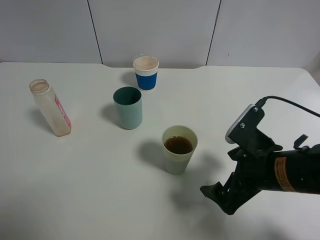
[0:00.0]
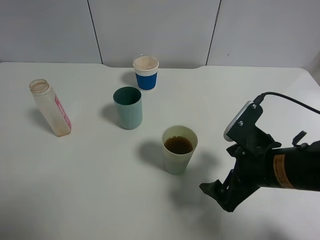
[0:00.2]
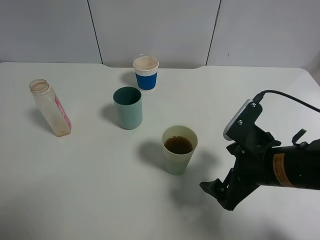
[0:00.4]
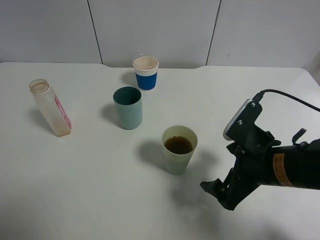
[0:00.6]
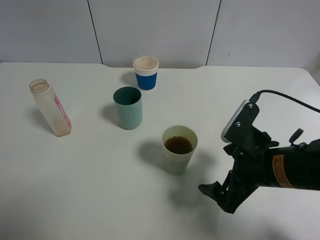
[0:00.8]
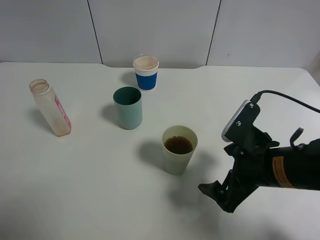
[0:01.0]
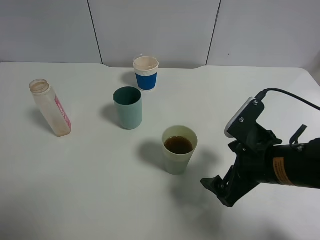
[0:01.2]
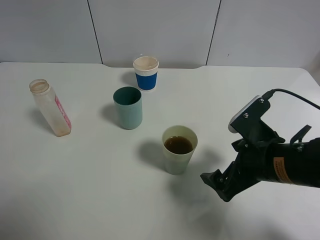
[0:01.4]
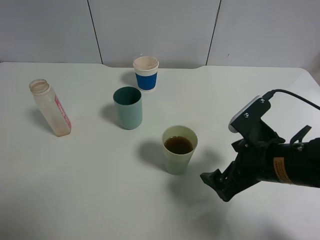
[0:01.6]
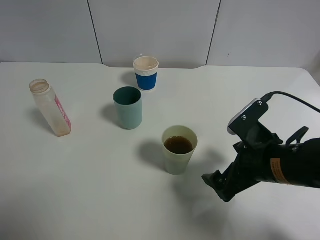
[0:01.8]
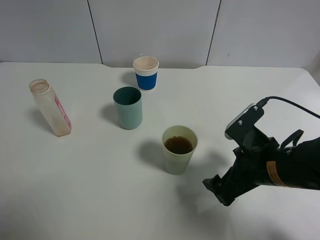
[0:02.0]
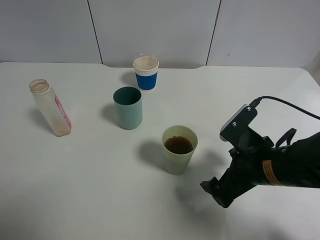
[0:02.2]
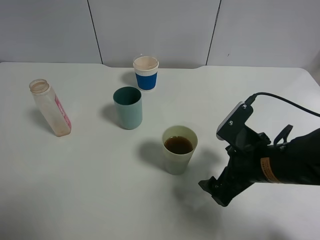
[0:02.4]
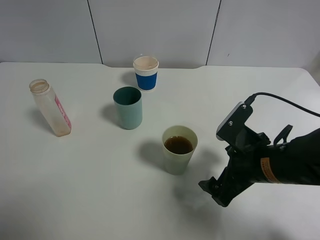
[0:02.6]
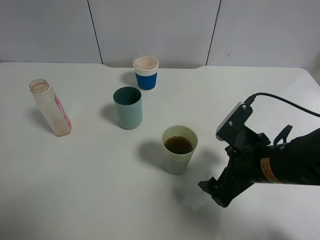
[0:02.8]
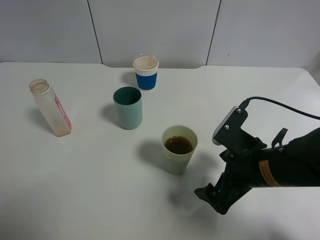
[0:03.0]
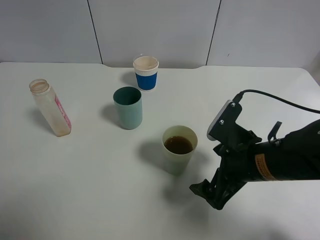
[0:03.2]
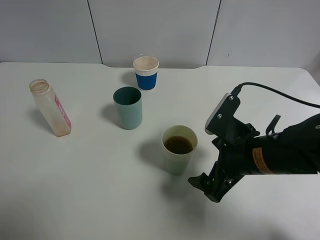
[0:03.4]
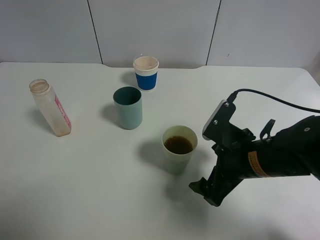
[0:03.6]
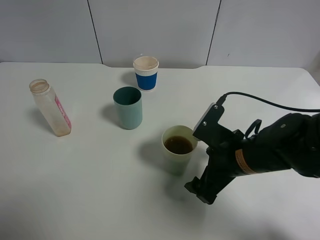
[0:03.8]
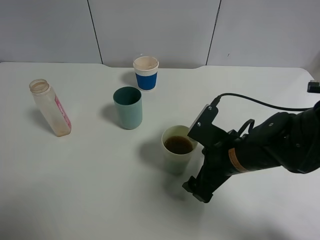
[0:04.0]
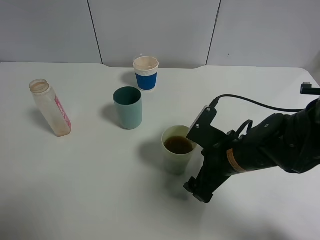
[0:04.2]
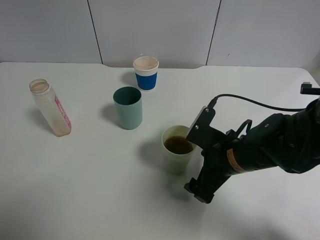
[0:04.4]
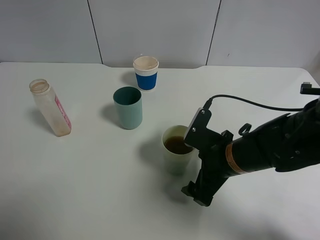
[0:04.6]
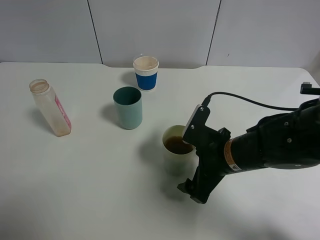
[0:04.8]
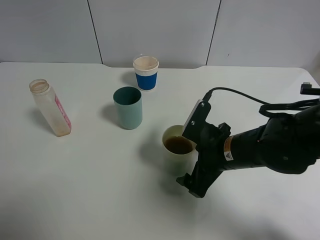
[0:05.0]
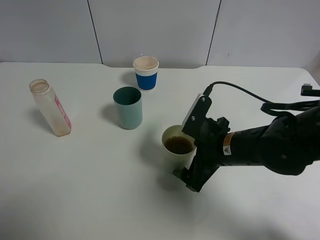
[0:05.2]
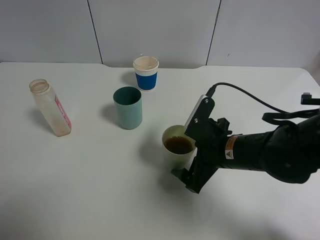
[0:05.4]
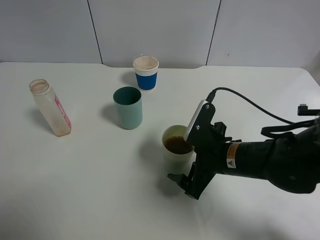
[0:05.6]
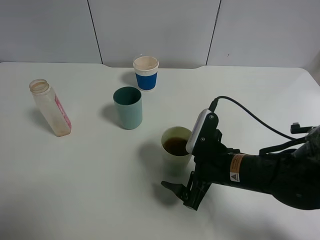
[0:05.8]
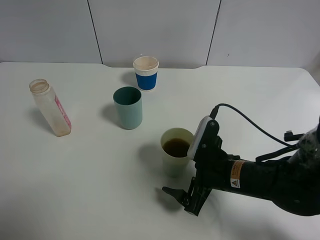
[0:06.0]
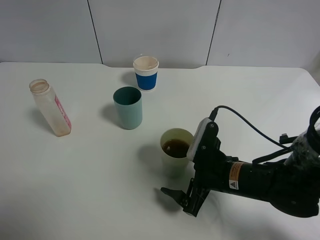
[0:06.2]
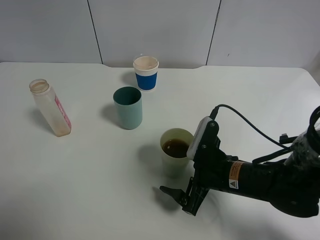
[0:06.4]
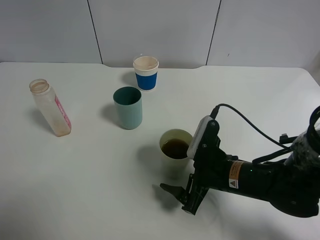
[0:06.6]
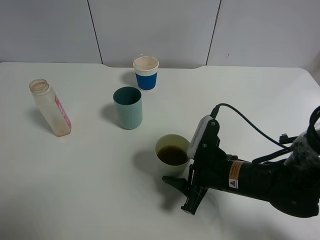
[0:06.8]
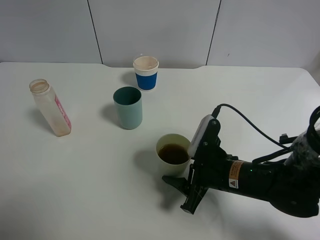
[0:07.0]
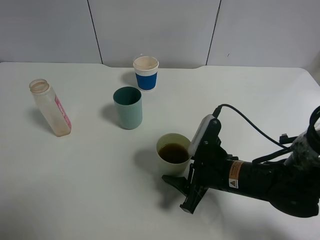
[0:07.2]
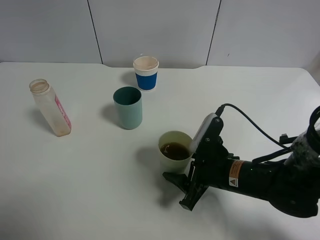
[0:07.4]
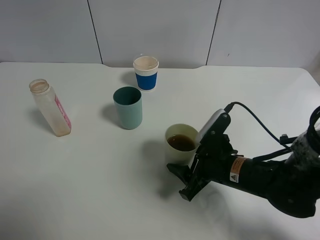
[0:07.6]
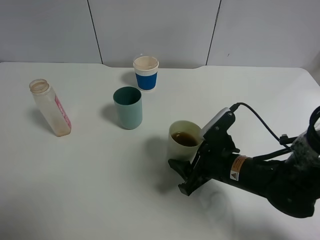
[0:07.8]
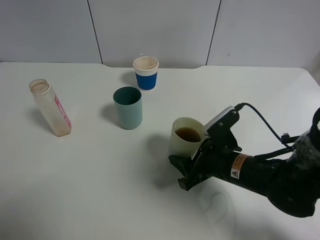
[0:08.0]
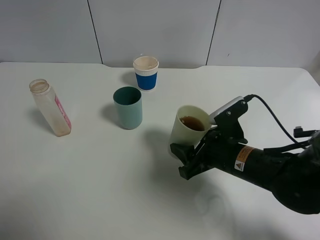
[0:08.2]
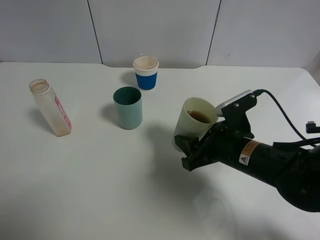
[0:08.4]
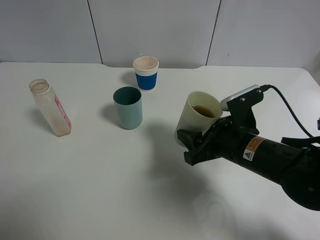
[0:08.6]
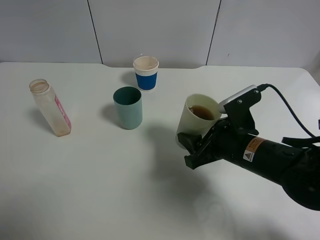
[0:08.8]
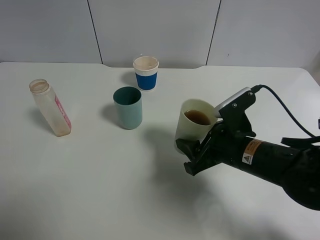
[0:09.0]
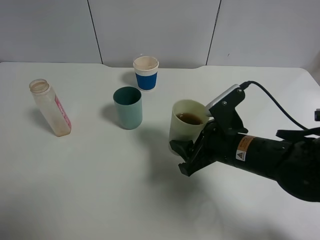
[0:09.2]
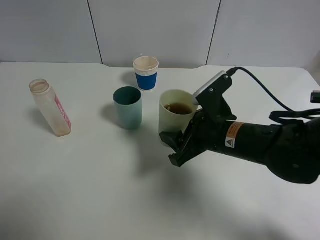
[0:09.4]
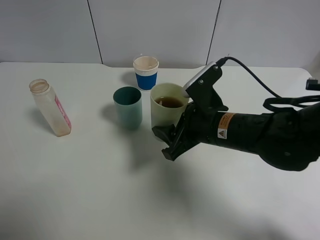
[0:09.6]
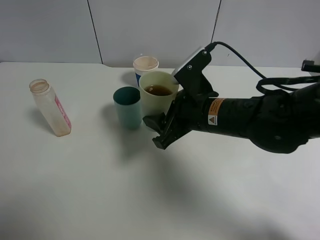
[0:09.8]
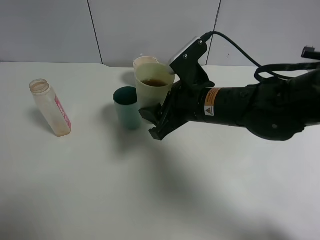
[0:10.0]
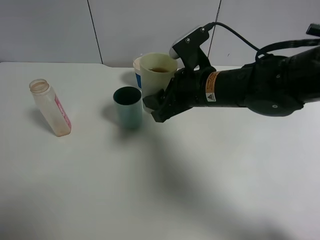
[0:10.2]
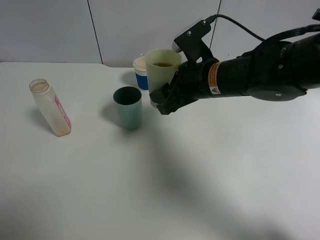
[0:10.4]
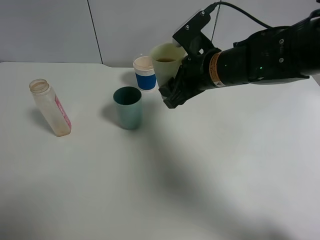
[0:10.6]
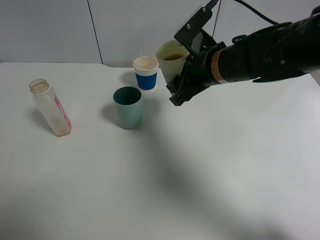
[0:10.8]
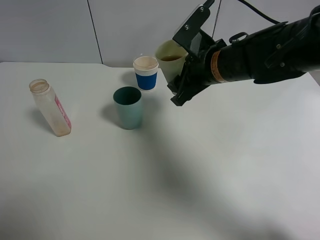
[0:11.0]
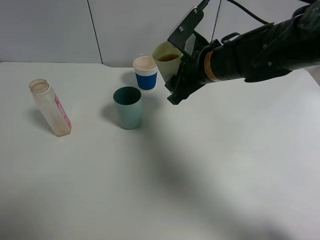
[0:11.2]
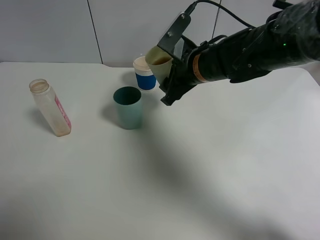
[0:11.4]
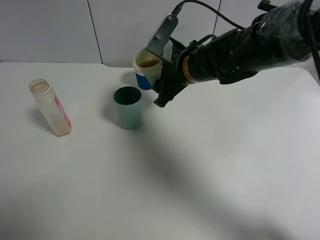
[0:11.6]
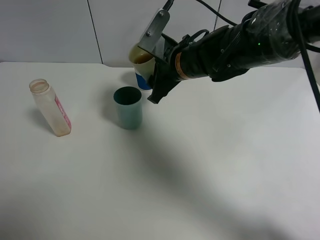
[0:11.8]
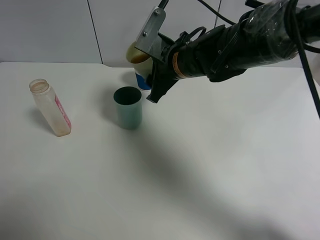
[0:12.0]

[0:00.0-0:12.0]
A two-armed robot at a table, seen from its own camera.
Task of the whole recording: use a clamp to hold the bottle of the drink, pour the beverage into a random cup, then clamp the cup containing the drink and pour the drink into another random cup.
Step, 0:00.0 to 0:08.2: Pick up the green plastic cup bottle with right gripper.
0:00.0 to 0:03.0: There are only small adjustments of the grippers.
0:03.0 to 0:04.4: The right gripper shifts by about 5 cm.
0:06.0 to 0:07.6: The right gripper closes.
0:07.6 to 0:09.0: The grippers move only a little.
0:09.0 to 0:10.4: The right gripper heads forward, upward and to the left, covering some 15 cm.
0:10.4 to 0:12.0: The right gripper ends up about 5 cm from where it was.

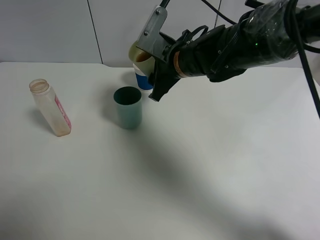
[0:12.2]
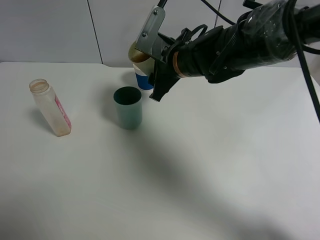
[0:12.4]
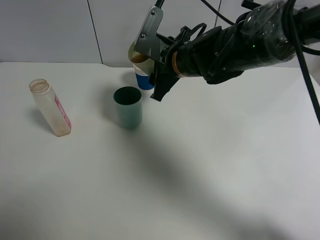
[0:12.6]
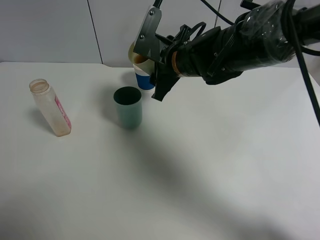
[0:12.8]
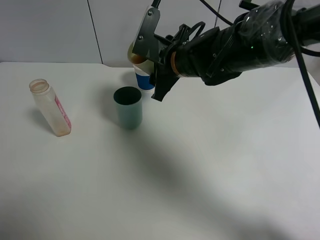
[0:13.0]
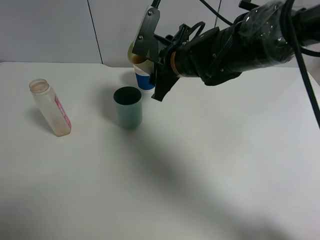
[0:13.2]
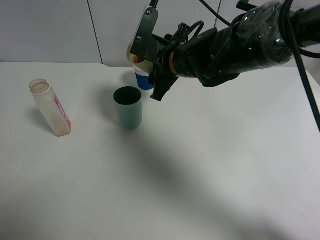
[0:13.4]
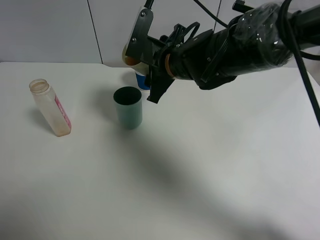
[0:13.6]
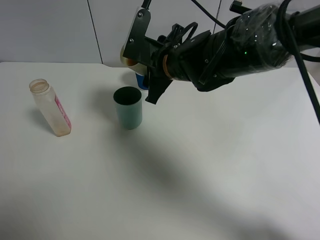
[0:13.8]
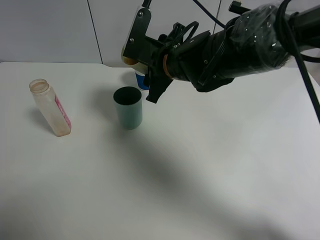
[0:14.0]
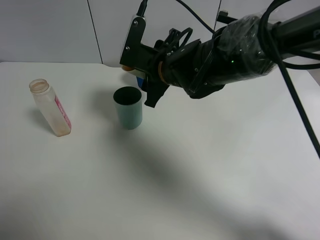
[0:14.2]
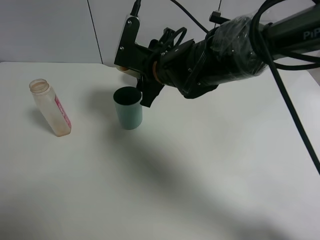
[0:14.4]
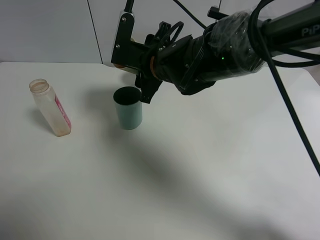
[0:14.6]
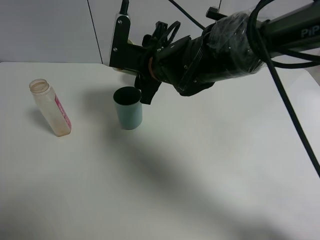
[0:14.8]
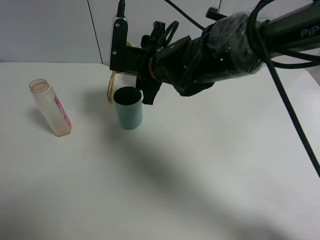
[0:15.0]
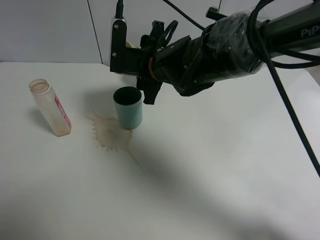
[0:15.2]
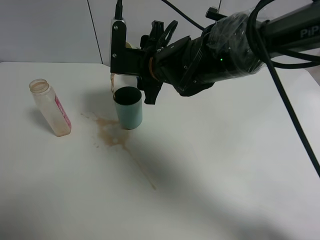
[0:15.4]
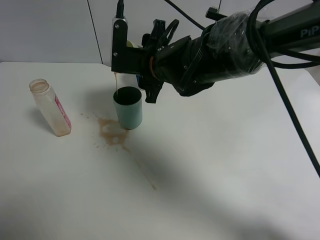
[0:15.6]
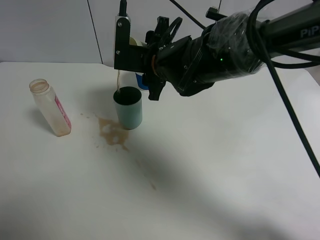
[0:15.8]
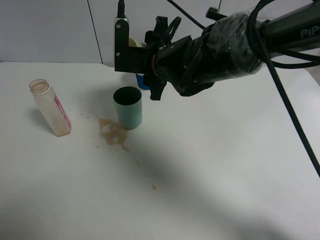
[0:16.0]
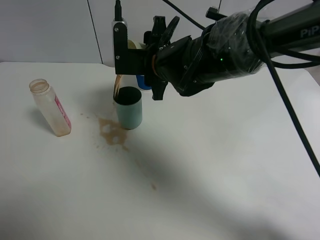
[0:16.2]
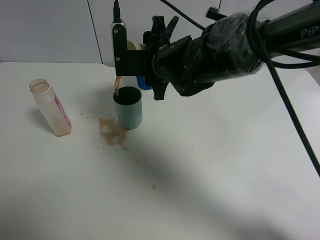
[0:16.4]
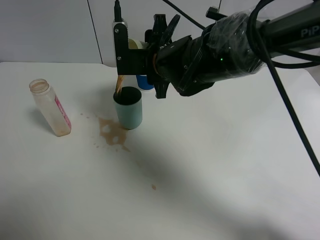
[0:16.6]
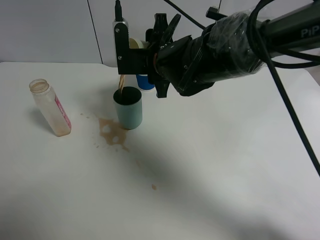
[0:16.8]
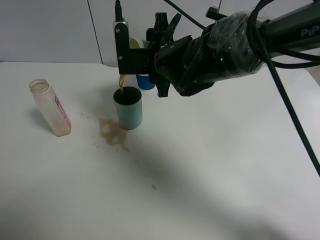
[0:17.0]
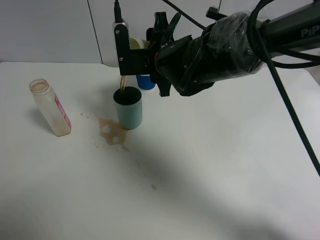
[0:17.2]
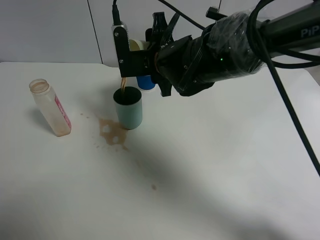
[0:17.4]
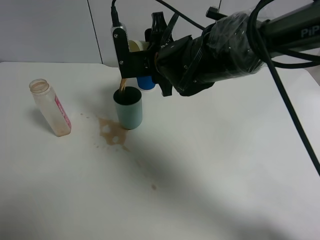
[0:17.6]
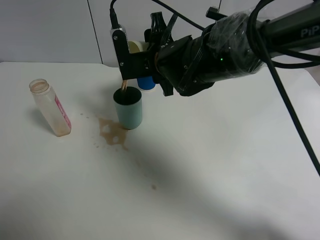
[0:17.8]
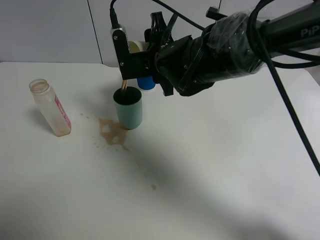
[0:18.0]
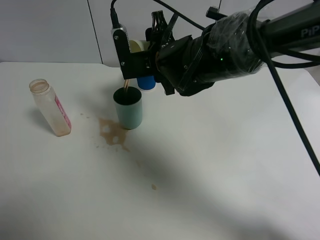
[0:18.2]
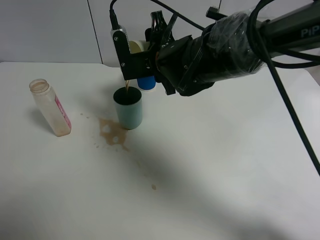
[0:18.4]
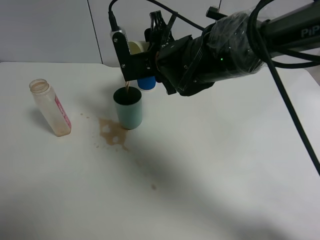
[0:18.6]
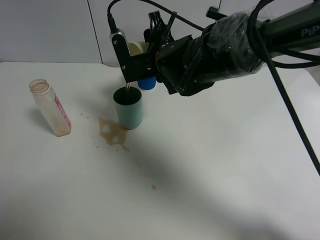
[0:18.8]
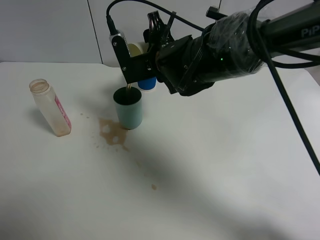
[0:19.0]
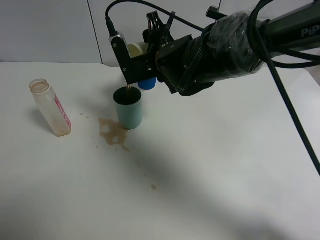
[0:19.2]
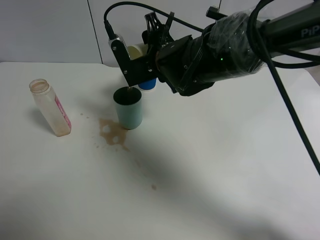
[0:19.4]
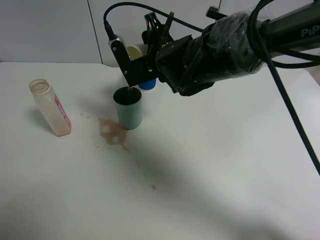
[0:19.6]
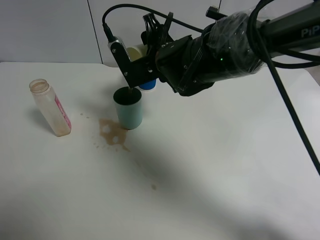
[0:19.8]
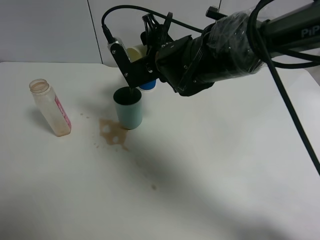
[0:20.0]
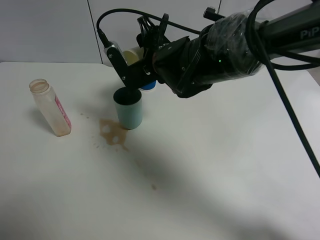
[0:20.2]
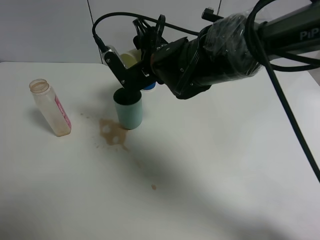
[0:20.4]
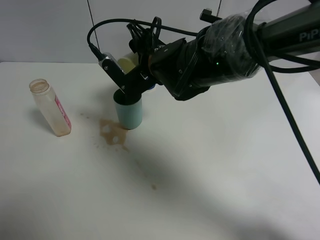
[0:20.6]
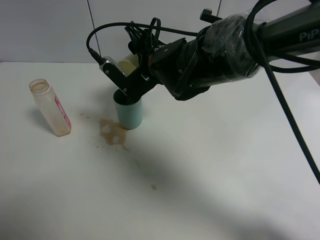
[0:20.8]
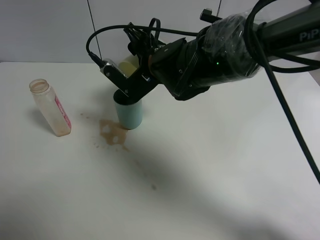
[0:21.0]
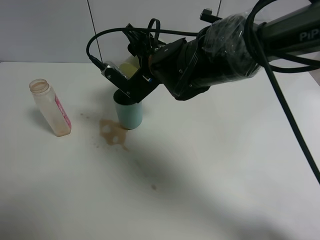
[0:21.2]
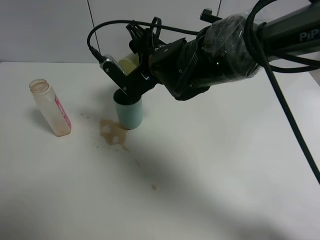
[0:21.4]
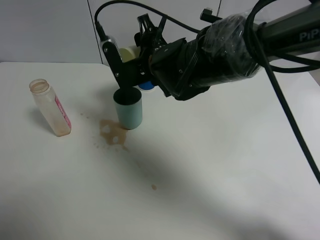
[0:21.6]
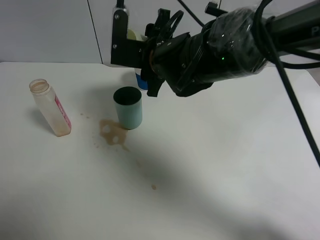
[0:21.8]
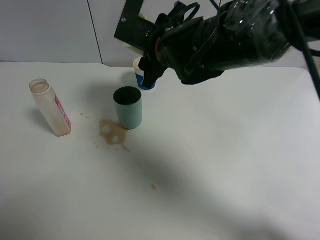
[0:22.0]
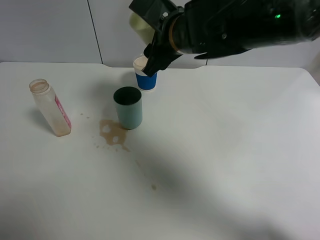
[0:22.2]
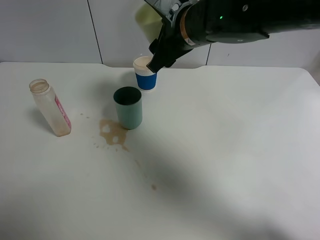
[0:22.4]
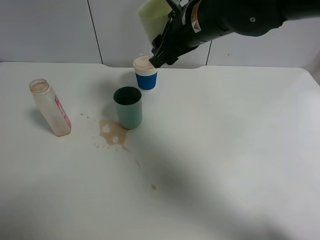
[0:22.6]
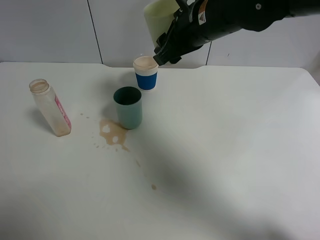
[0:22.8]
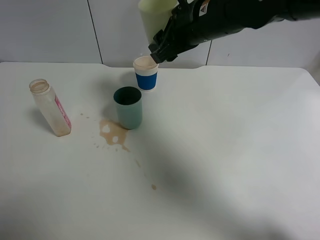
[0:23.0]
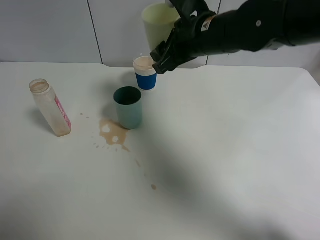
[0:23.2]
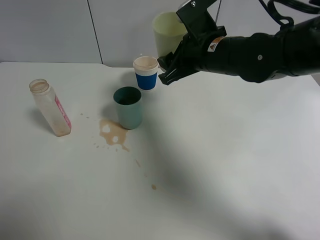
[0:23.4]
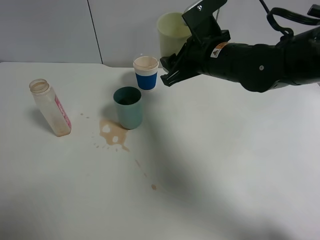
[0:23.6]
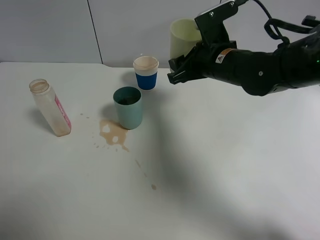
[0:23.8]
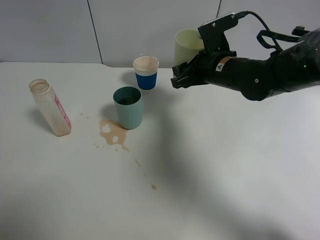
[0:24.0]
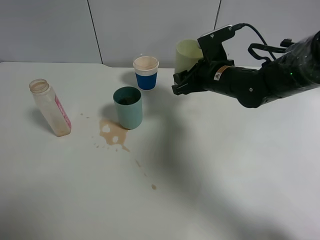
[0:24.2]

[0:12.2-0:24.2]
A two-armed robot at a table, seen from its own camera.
Task of the whole recording: use a clamp to hold the bottle of the drink, pour the beverage into a random cup, then clamp the cup containing the drink and pour the drink into another random cup.
Step, 0:12.2 to 0:21.6: Pour the drink into the blue plastic cup with right gripper.
0:12.2 to 0:13.8: The grippers stay close to where they were, moving slightly.
0:13.8 to 0:15.2: The grippers make only small movements.
0:15.2 to 0:16.6: There are only small adjustments of the grippers.
0:16.6 to 0:18.2: There are only small adjustments of the grippers.
0:18.2 to 0:19.8: The grippers make only small movements.
0:21.2 to 0:22.6: The right gripper heads upward and to the right, covering approximately 10 cm.
0:22.6 to 0:24.2: The right gripper goes roughly 15 cm downward and to the right.
